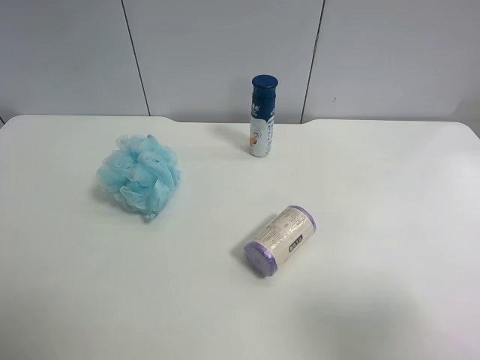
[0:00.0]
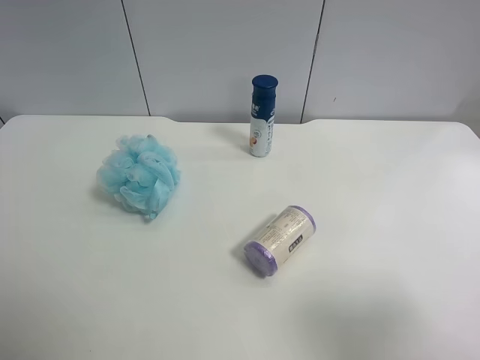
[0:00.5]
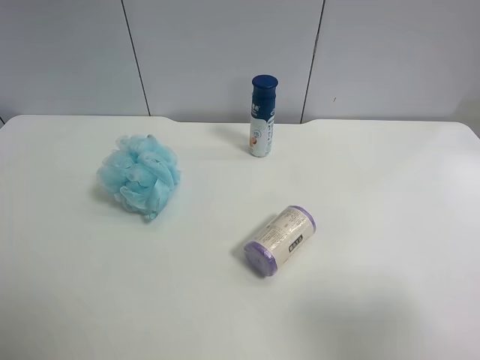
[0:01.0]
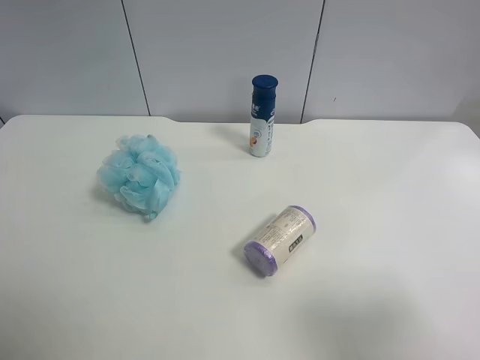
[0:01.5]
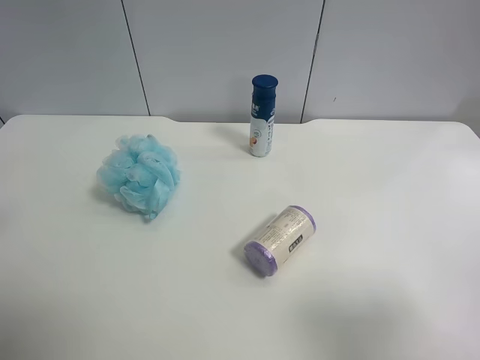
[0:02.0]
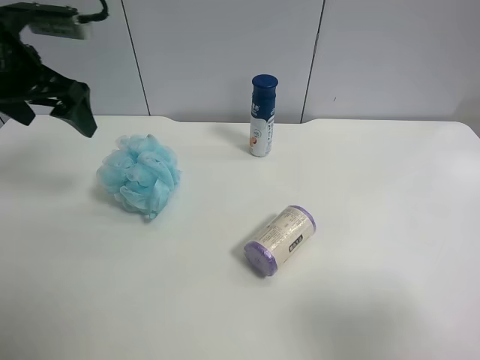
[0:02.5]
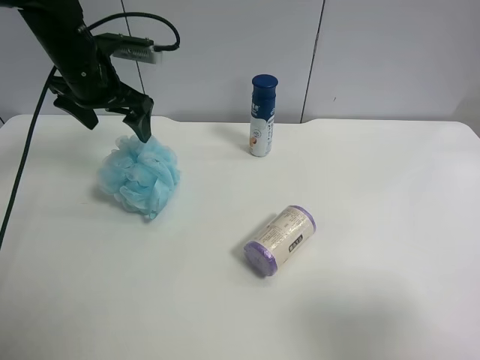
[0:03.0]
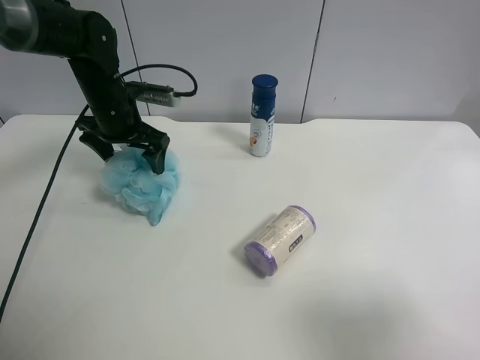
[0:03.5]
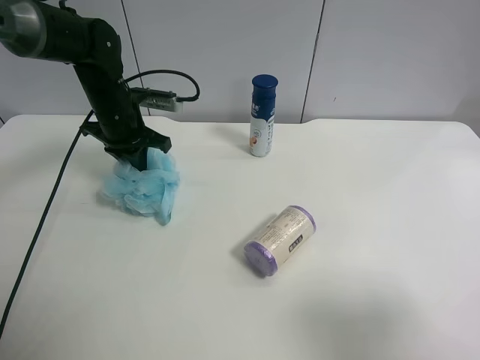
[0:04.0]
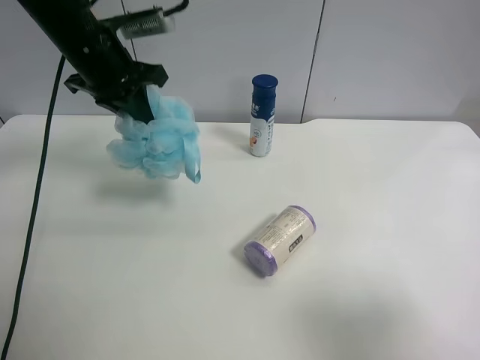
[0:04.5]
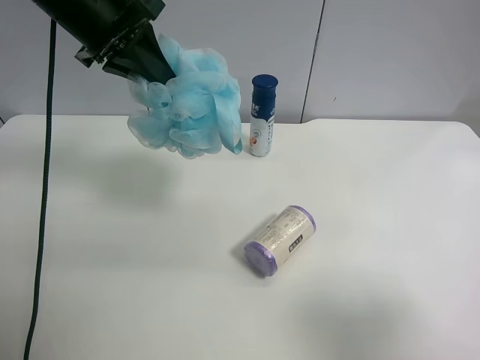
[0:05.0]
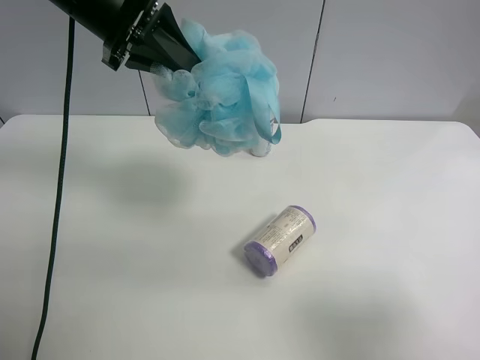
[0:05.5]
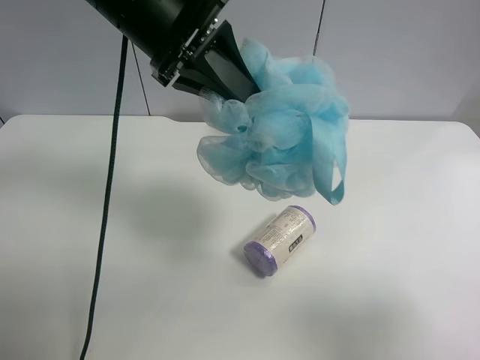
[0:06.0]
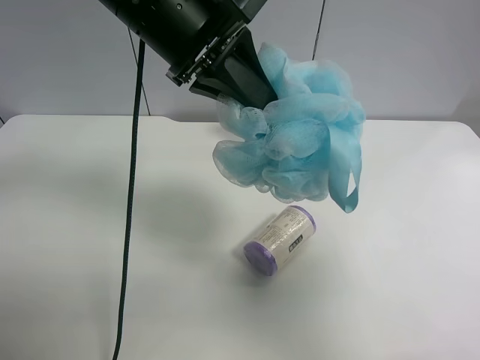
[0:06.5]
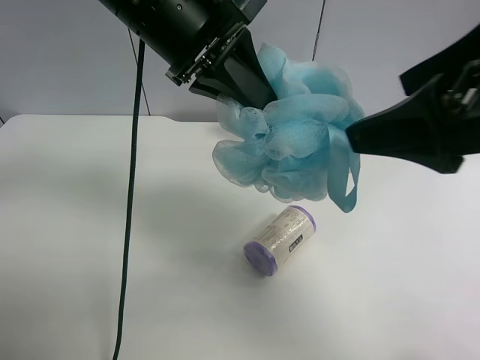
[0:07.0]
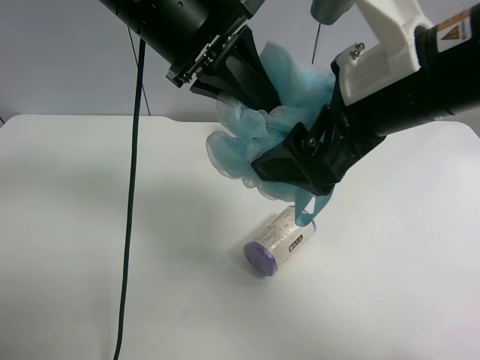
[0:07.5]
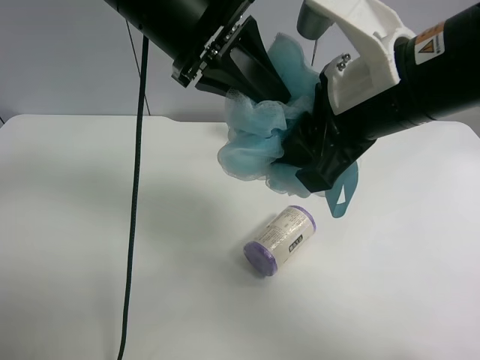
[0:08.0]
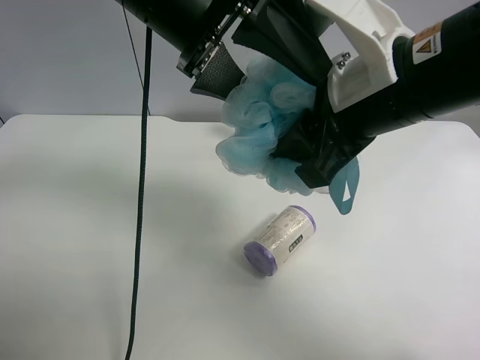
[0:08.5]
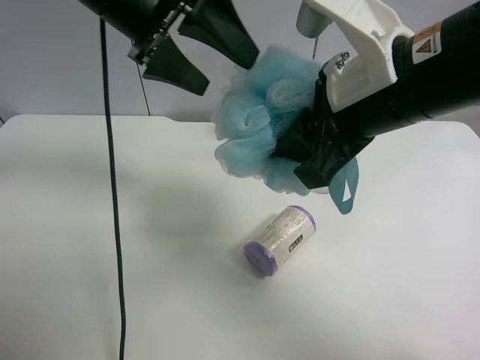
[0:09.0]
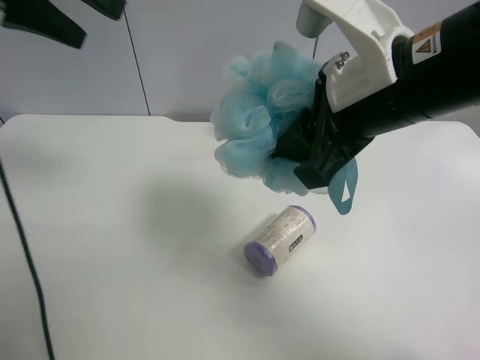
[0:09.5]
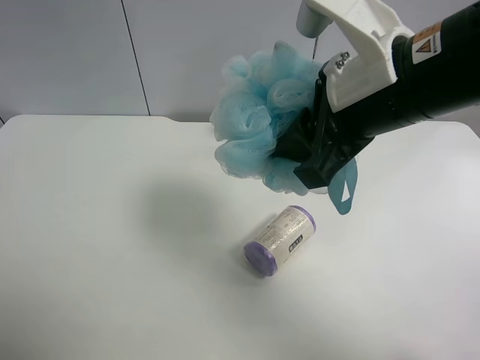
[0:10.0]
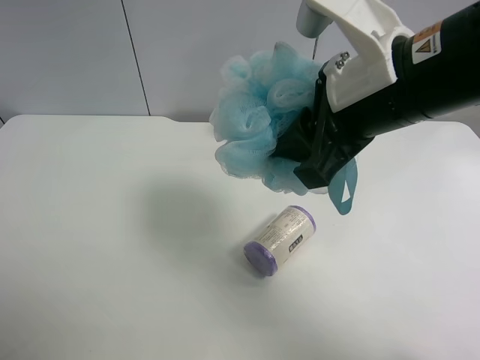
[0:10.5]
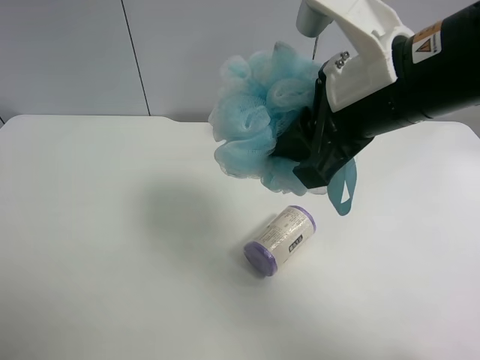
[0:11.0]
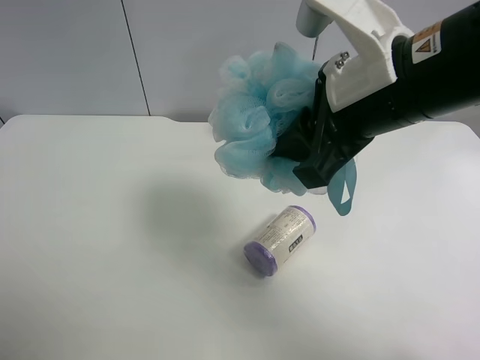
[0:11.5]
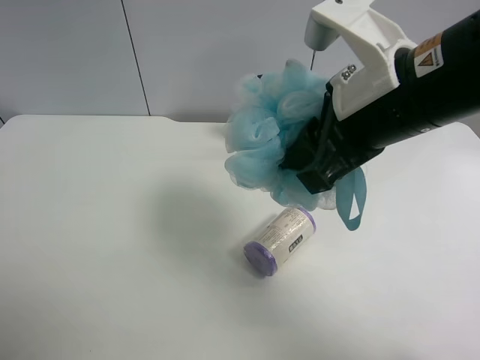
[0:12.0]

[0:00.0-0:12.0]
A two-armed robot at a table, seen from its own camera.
Task of the whole recording: use the left gripper to pick up the item and transfer it from the left gripper to the right gripper.
0:02.0 to 0:04.0: The left gripper moves forward, downward and to the right, about 30 cm, and closes its fingers.
0:04.0 to 0:06.0: The left gripper travels upward, backward and to the right by roughly 25 cm.
0:06.0 to 0:08.0: The right gripper travels forward and to the left by approximately 25 cm, and closes.
0:08.0 to 0:10.0: The left gripper shifts approximately 25 cm to the left, backward and upward, and opens.
0:10.0 to 0:12.0: The left gripper moves downward and backward, roughly 20 cm.

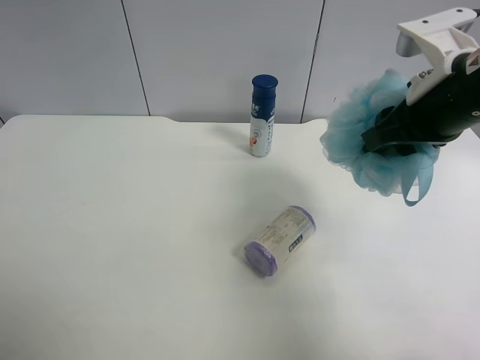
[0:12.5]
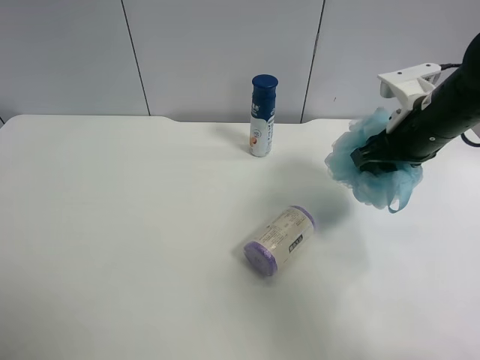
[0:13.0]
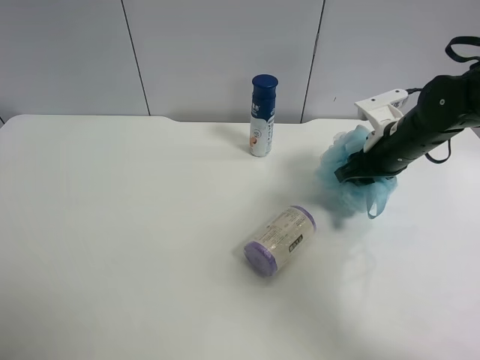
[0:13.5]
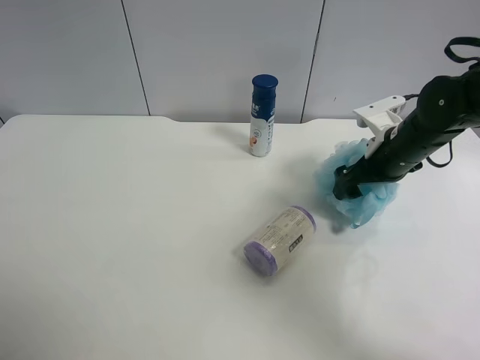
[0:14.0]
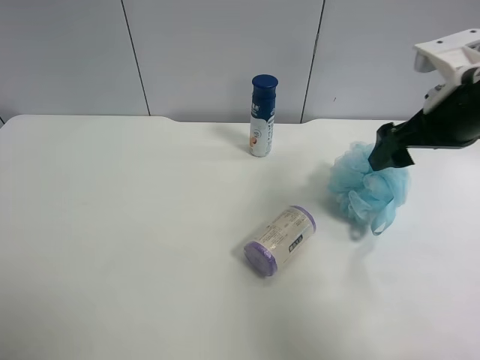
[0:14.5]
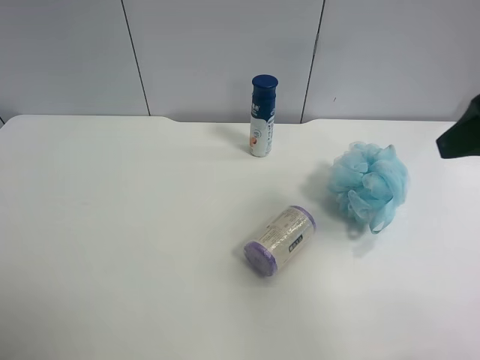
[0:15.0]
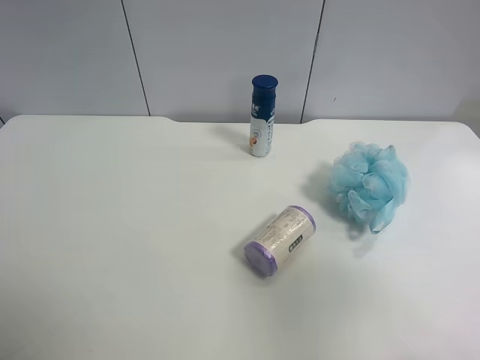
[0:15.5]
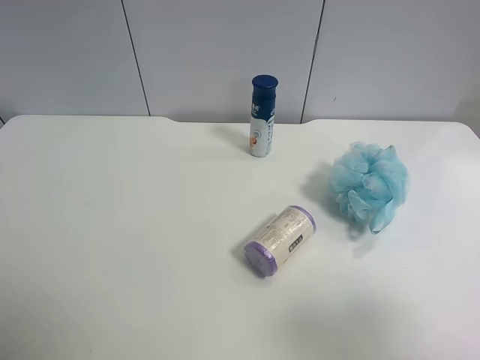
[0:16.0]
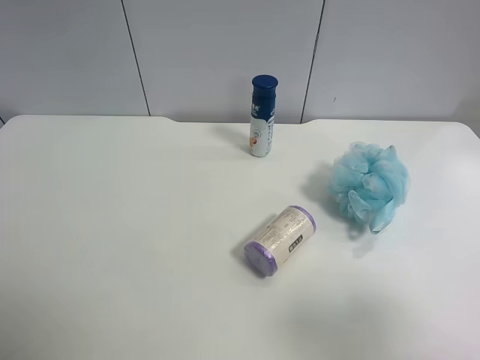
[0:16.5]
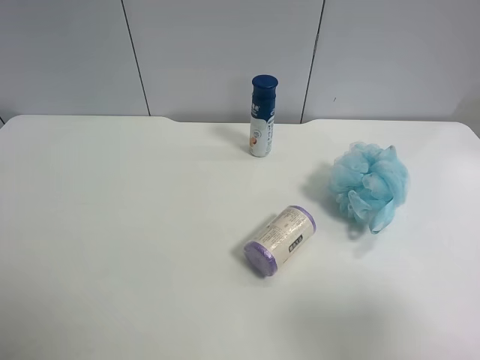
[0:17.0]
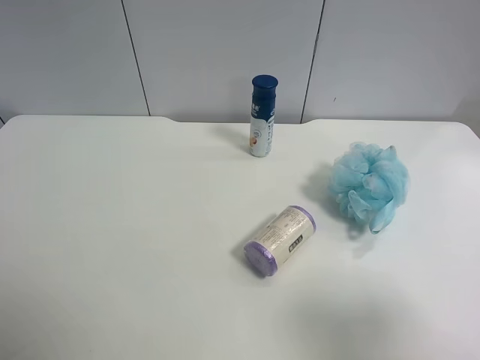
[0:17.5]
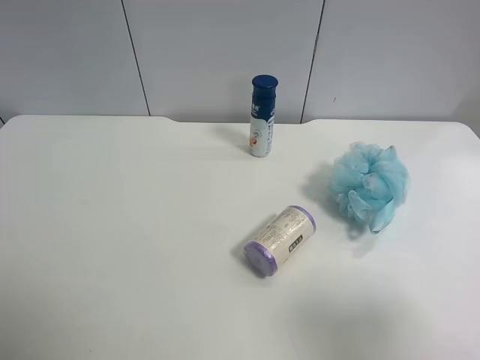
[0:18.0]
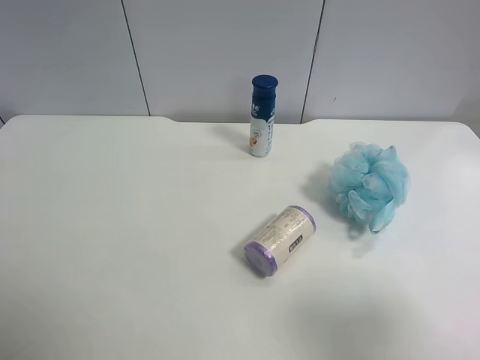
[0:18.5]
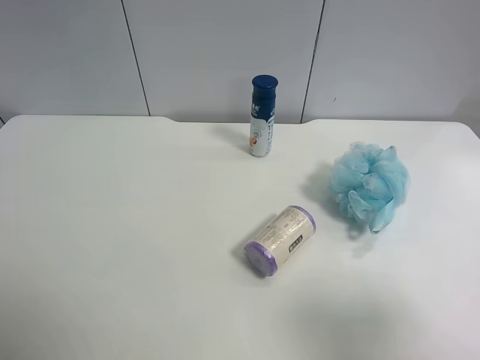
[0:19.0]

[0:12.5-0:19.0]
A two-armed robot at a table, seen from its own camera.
Task of the whole recording: use the left gripper to pick up the item and transfer it from the left gripper to the right gripper.
0:12.5 to 0:14.5: The right gripper goes downward and returns, roughly 15 cm each way, and opens up.
0:14.5 to 0:17.0: The right gripper heads backward, covering roughly 25 cm.
0:17.0 to 0:19.0: Neither gripper changes place.

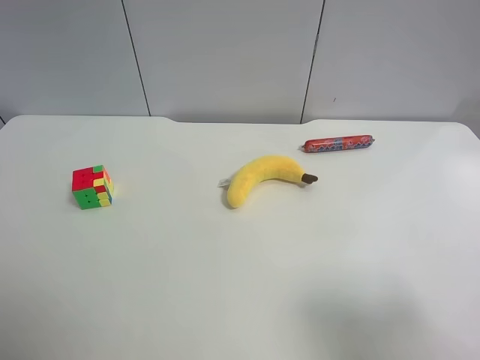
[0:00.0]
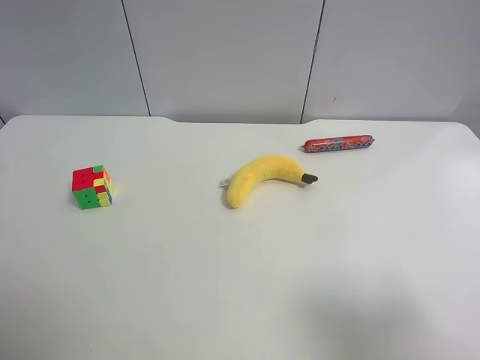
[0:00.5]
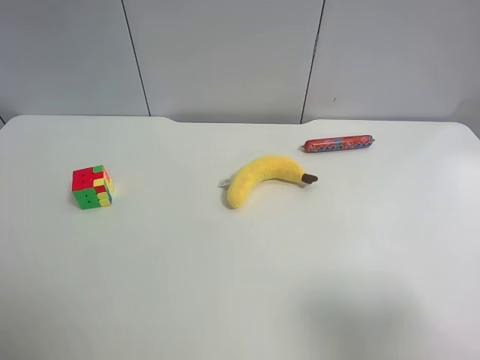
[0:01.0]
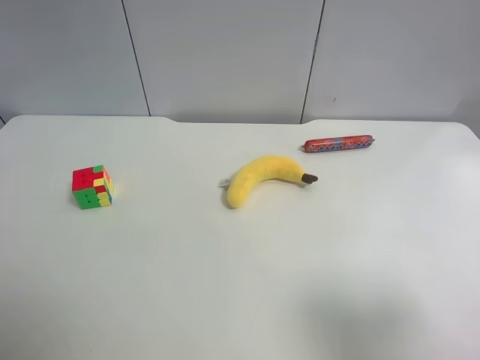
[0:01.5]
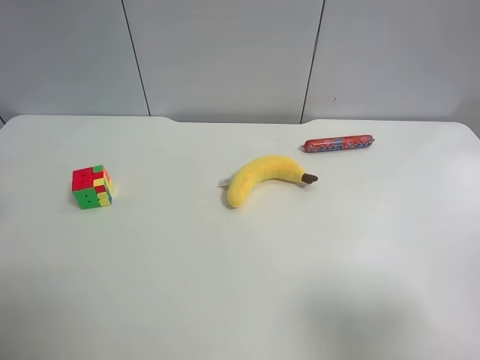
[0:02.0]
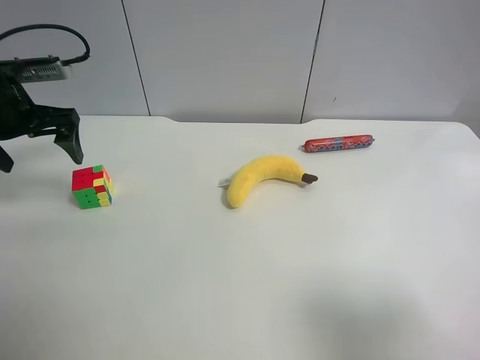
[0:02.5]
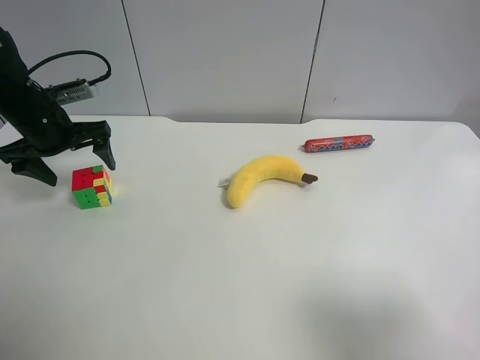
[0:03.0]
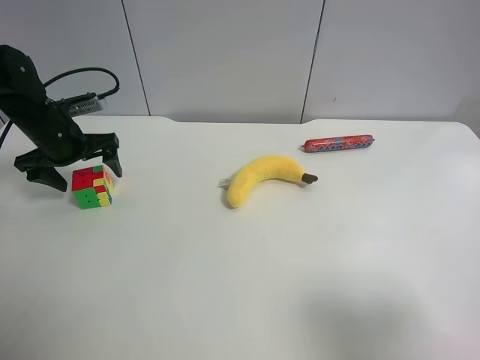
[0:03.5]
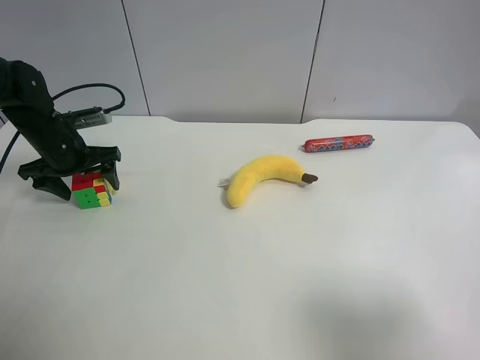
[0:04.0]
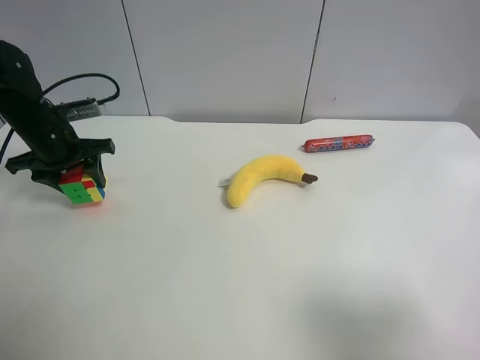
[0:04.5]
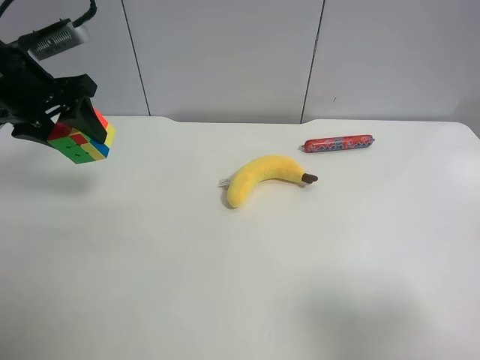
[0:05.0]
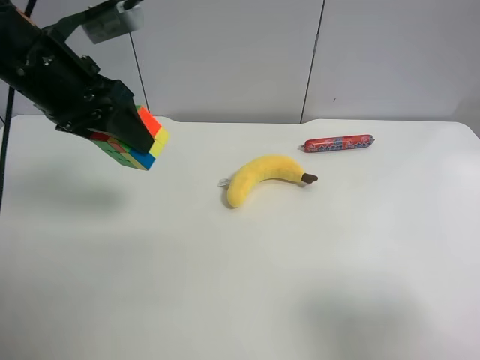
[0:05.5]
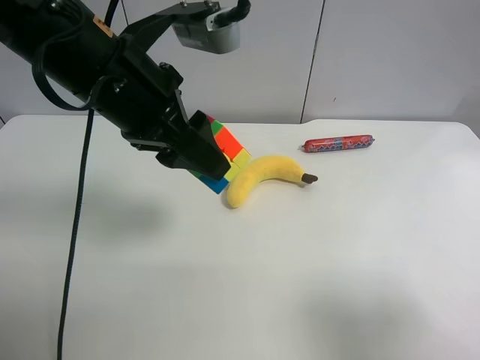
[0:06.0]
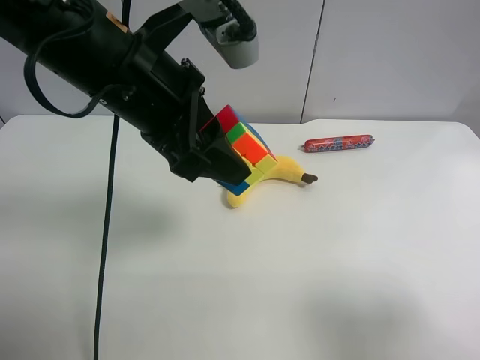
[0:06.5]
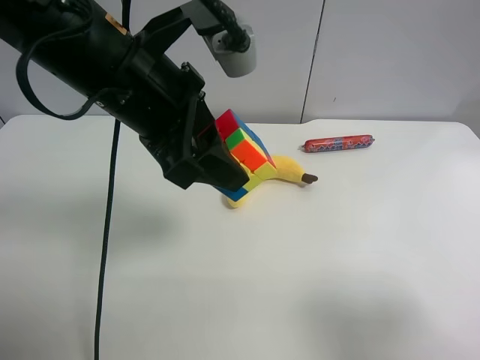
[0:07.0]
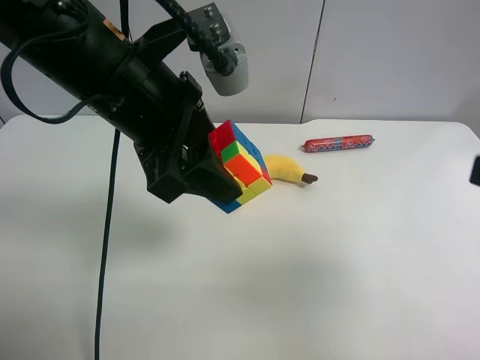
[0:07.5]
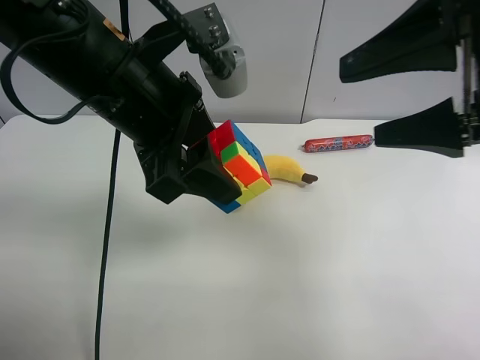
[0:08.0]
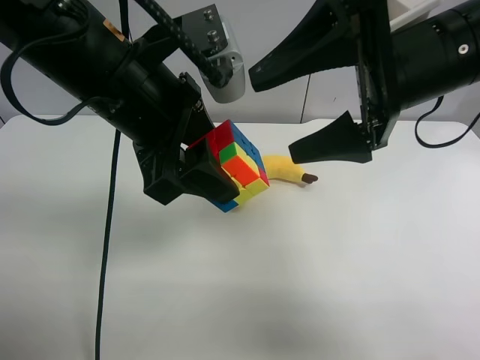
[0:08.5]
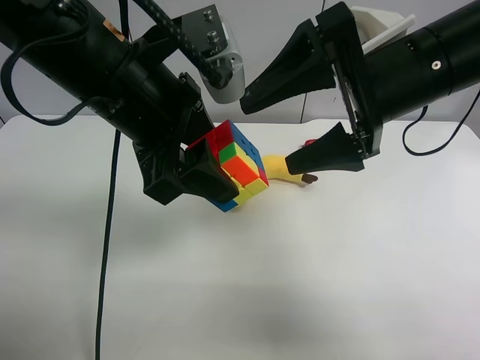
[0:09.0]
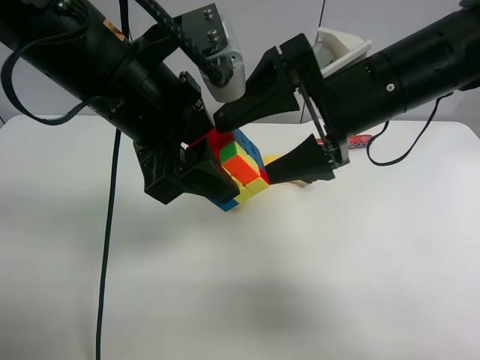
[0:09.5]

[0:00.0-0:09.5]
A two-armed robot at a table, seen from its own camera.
Task of the whole recording: use the left gripper to pick up the item and transfer it from the left gripper to the right gripper.
0:02.0 to 0:04.0: The left gripper is displaced downward and forward by approximately 25 cm, and closes its fingers.
0:04.0 to 0:05.5: The left gripper goes about 25 cm upward, to the right and backward, and closes its fingers.
0:05.5 to 0:07.5: The right gripper shifts some 10 cm forward and upward; the left gripper moves to the right and backward, about 10 cm.
0:07.5 to 0:09.5: The right gripper moves forward and to the left, about 20 cm.
